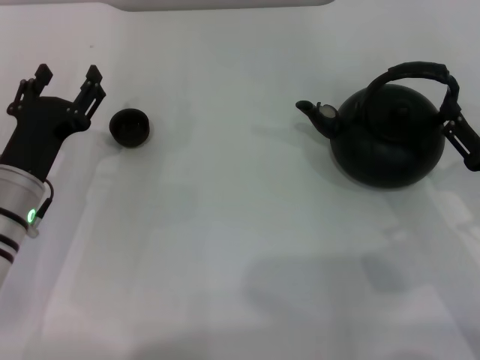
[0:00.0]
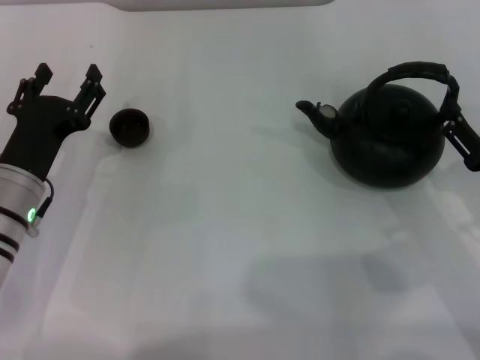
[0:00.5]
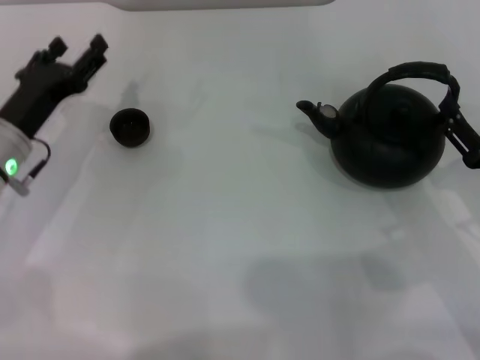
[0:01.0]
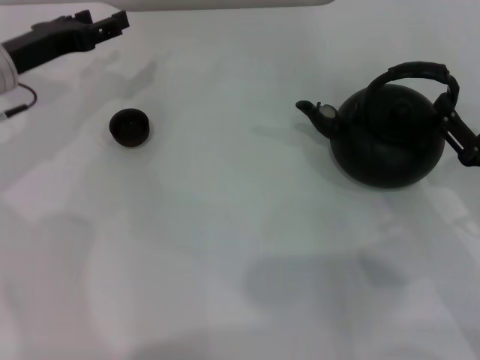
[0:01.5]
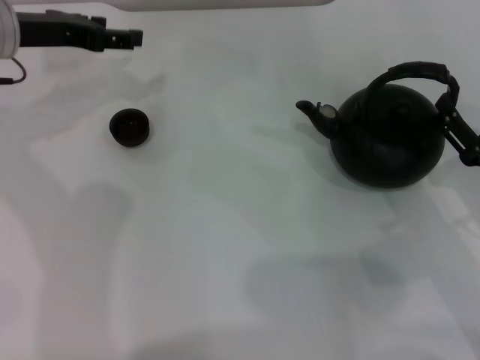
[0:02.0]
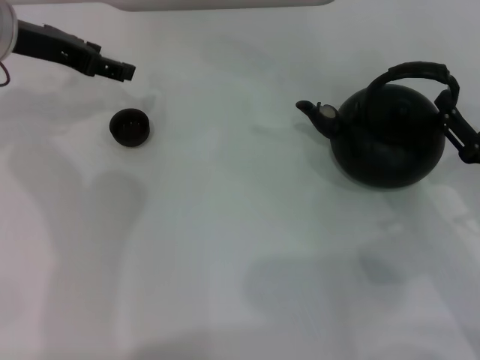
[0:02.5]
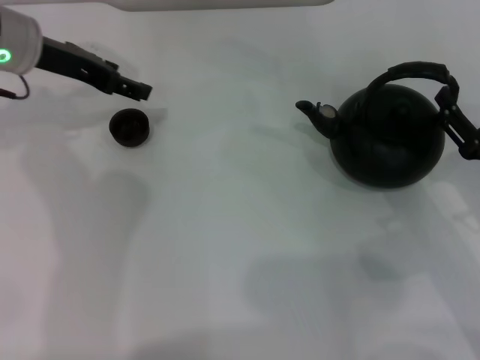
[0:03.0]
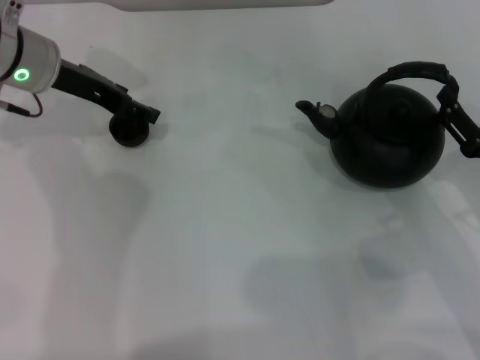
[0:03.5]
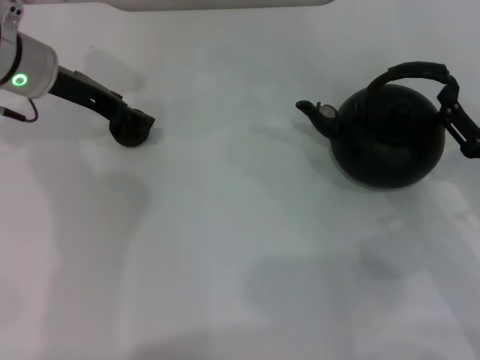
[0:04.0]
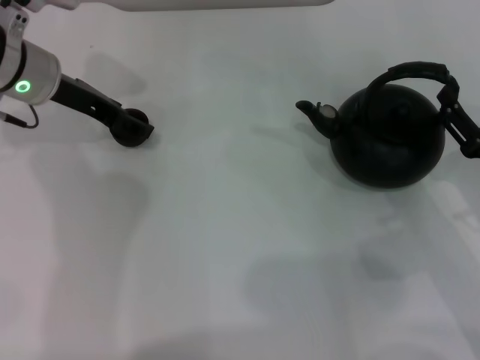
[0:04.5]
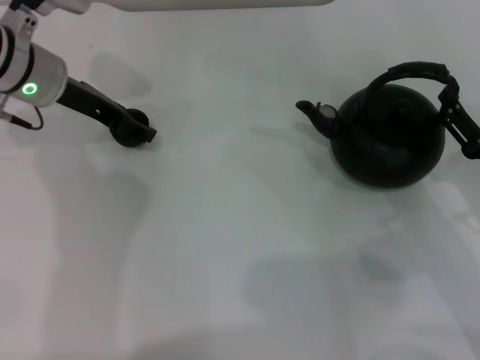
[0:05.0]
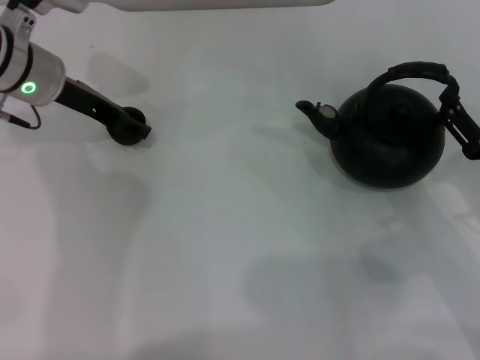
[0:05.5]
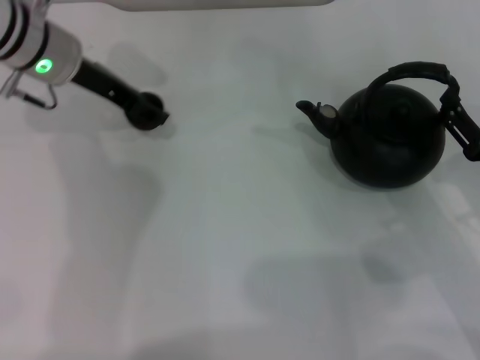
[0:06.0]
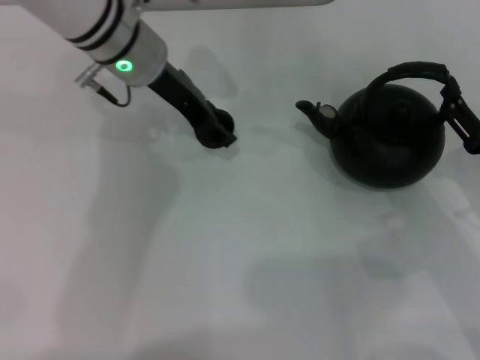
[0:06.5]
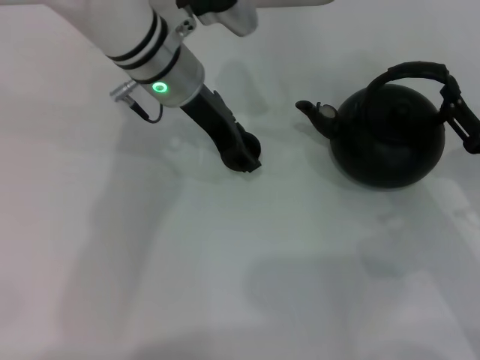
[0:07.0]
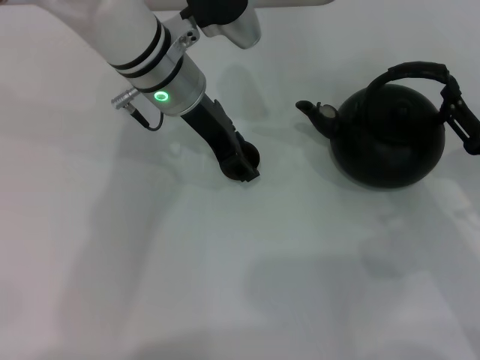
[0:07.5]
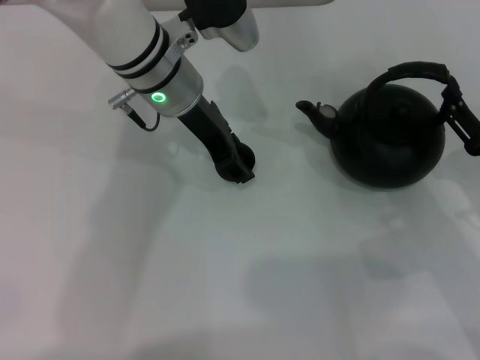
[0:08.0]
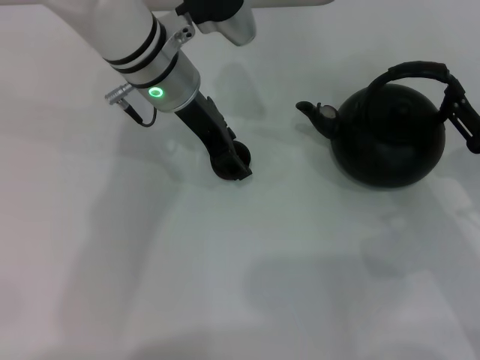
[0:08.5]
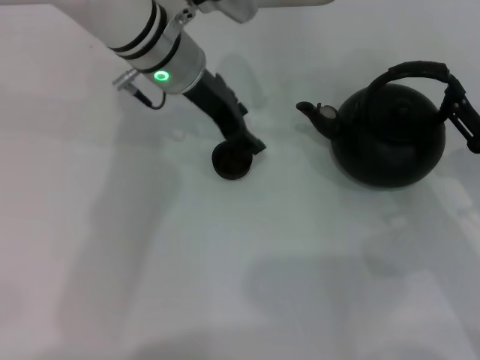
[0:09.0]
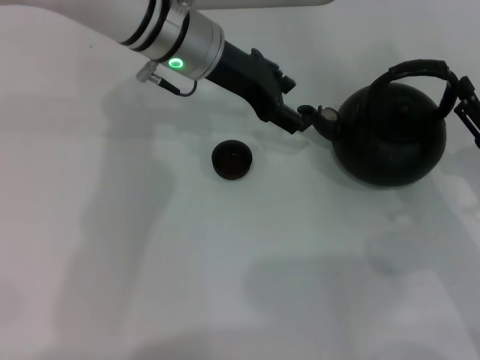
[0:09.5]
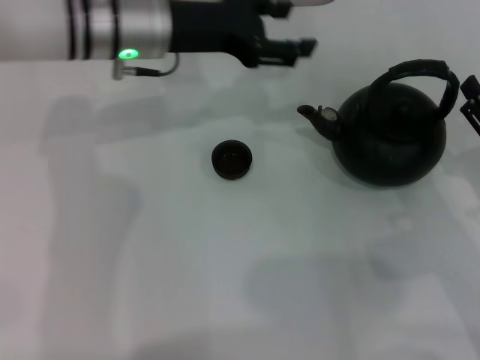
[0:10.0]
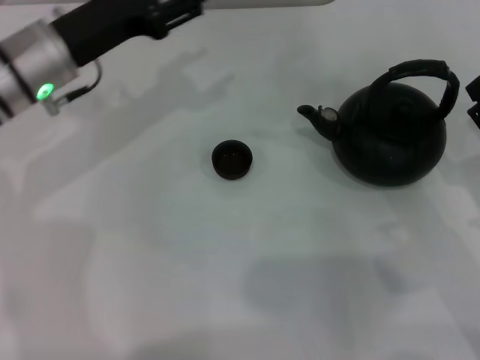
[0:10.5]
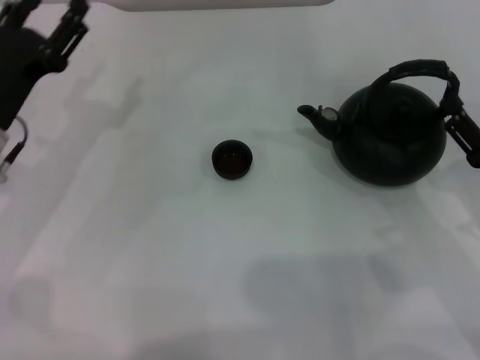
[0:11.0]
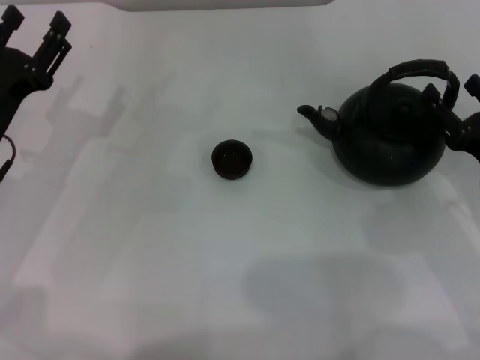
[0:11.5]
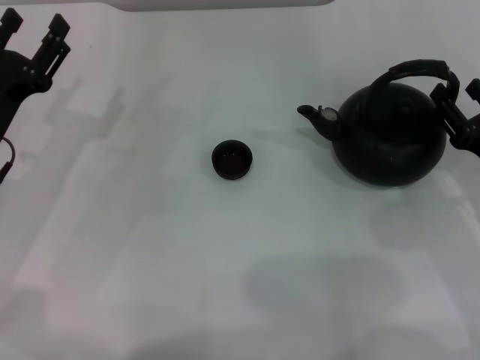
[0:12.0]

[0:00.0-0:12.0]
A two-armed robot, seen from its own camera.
Task of the whole recording: Grasp the handle of the teapot with one hand and pour tea into the teacup.
Step, 0:00.0 to 0:05.5: Pick up the teacup with the left gripper.
Step, 0:06.5 to 0:09.0: Place the teacup in the center of view with the left gripper.
0:00.0 to 0:02.0: The left gripper travels forward and upward by approximately 20 cm.
0:04.0 to 0:06.0: The left gripper closes up.
0:06.0 to 0:08.0: The left gripper shifts some 10 cm to the right.
0:08.0 to 0:10.0: The left gripper moves about 5 cm, and opens.
0:10.0 to 0:12.0: The left gripper shifts roughly 20 cm to the left, backward and downward.

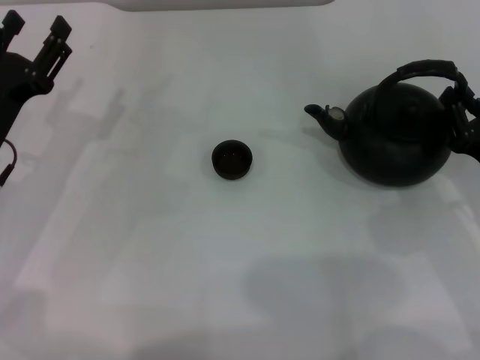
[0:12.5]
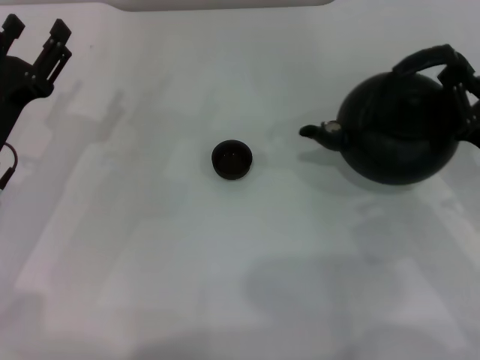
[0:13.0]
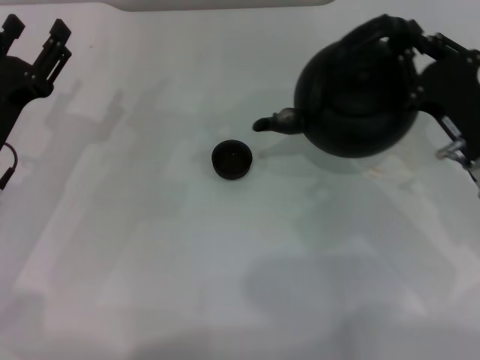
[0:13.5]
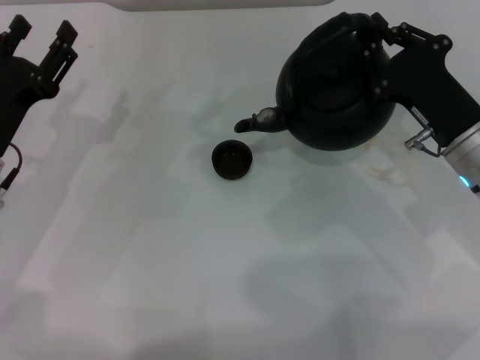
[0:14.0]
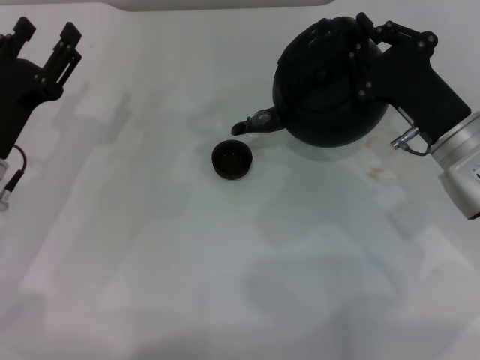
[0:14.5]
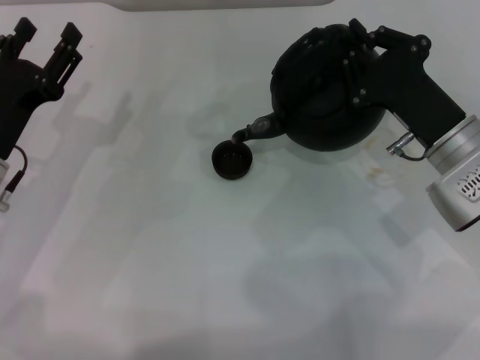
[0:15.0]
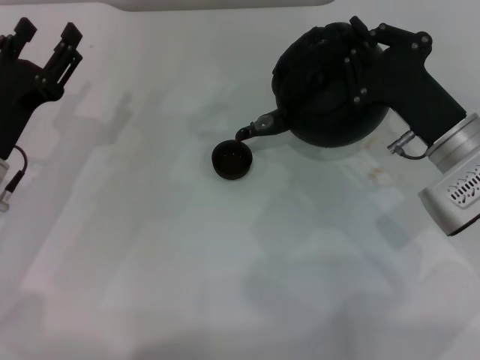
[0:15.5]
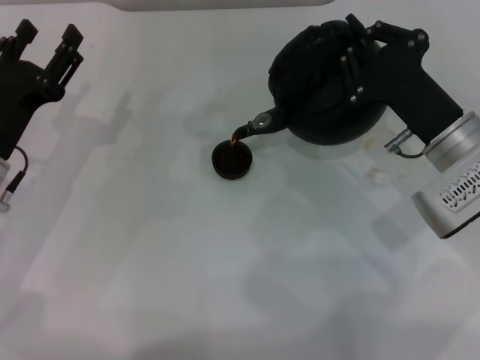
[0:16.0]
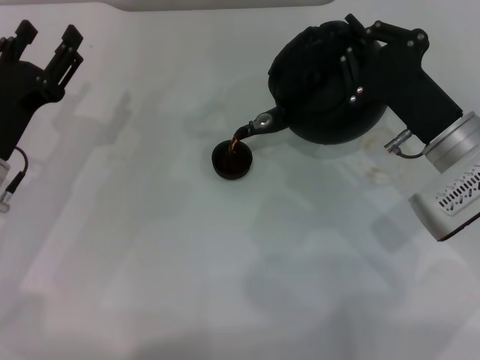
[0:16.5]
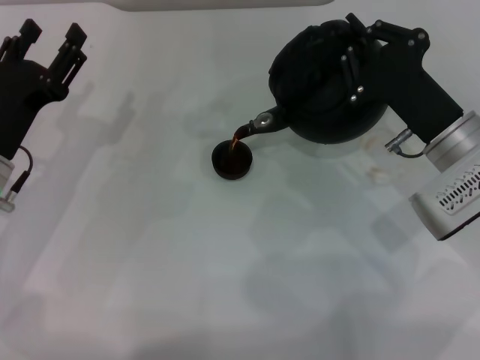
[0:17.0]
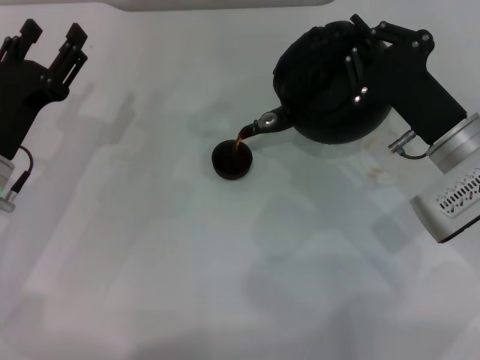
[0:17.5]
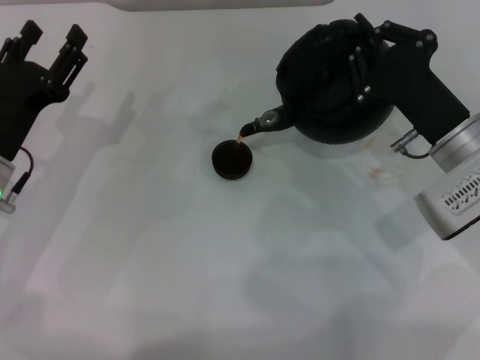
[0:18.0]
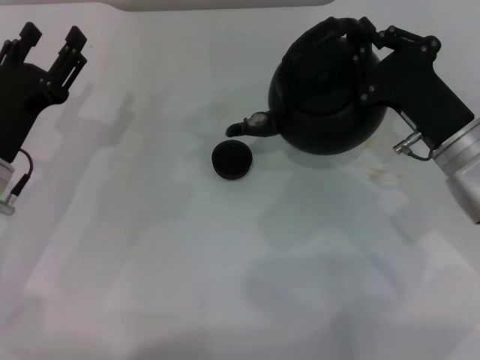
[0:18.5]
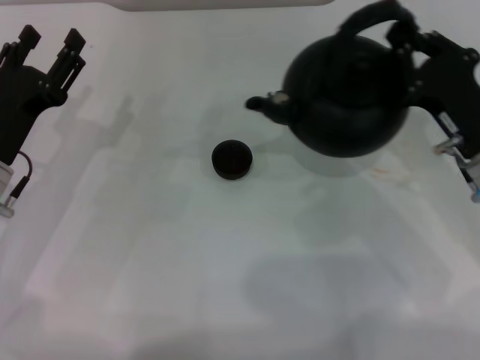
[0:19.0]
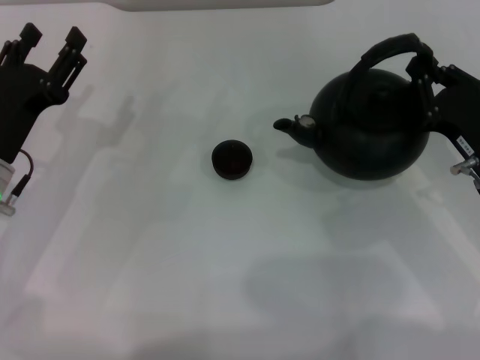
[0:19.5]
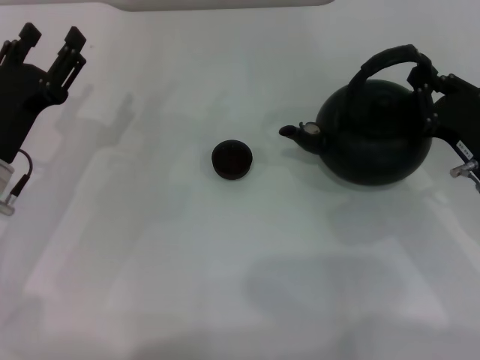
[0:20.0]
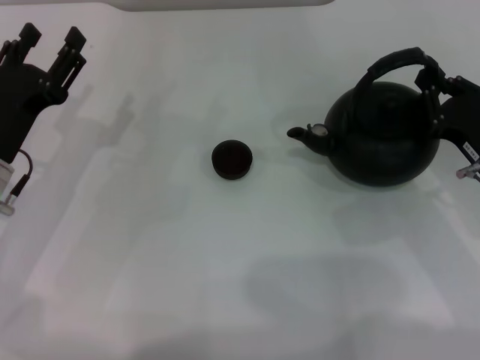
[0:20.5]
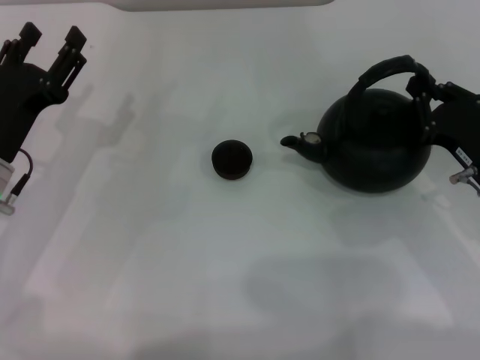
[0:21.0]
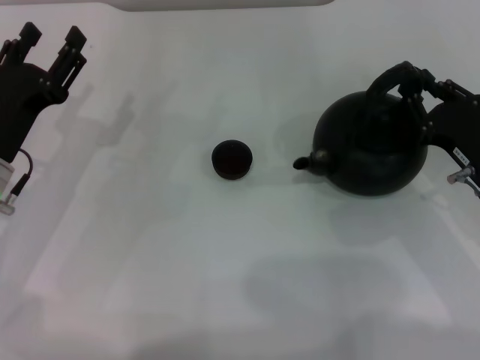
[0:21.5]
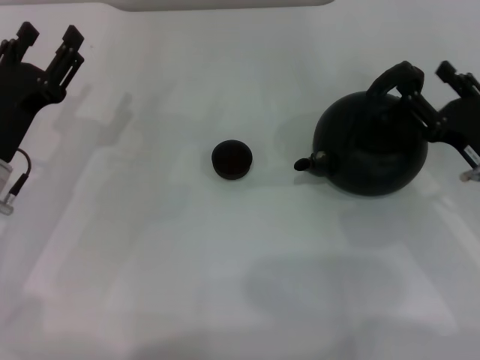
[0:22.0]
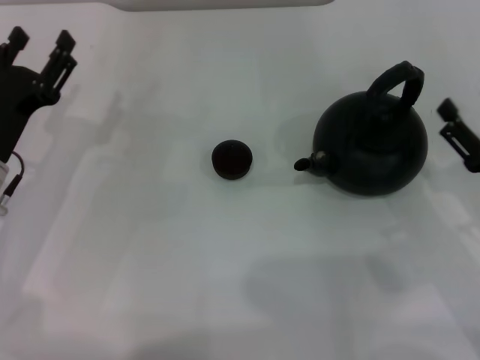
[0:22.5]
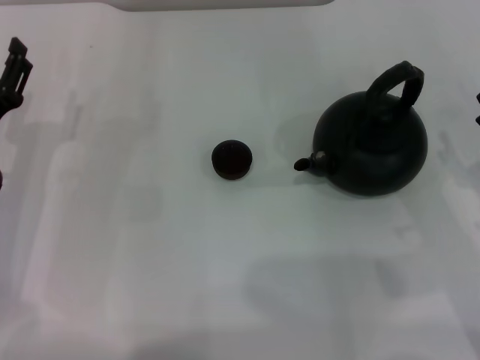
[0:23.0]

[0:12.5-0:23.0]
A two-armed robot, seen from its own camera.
Task of the whole recording: Grasp the handle of the teapot with one hand and pour tea into the teacup.
Step, 0:13.5 to 0:18.5: Pour tea into the teacup with the right gripper.
Step, 0:19.5 to 0:22.0: Put down the teapot with the right gripper.
0:12.5 to 0:14.5: The right gripper travels to the left and forward by some 10 cm, and closes.
0:14.5 to 0:16.5: The grippers make only small movements.
0:19.0 to 0:21.0: The grippers stay close to where they were, moving slightly.
0:21.0 to 0:23.0: The right gripper goes about 5 cm backward, and opens up.
